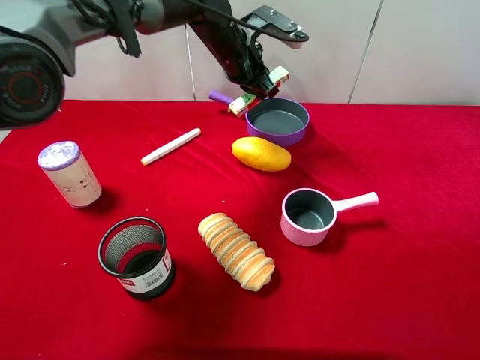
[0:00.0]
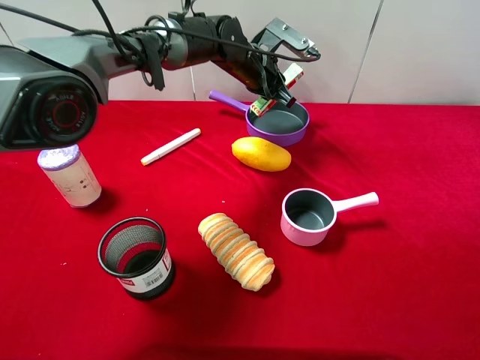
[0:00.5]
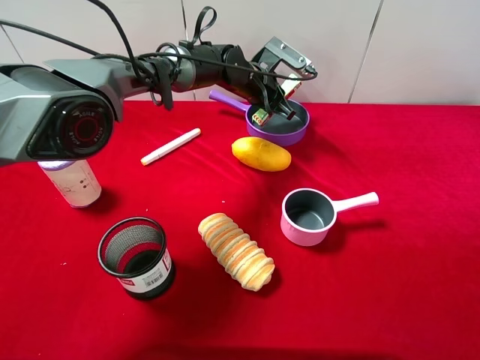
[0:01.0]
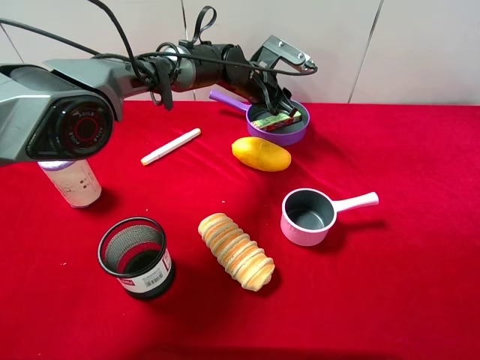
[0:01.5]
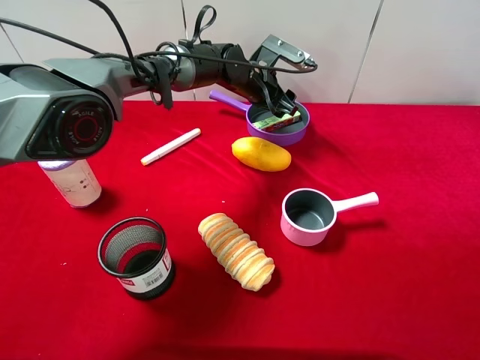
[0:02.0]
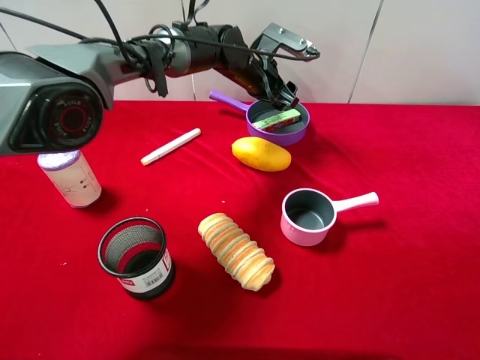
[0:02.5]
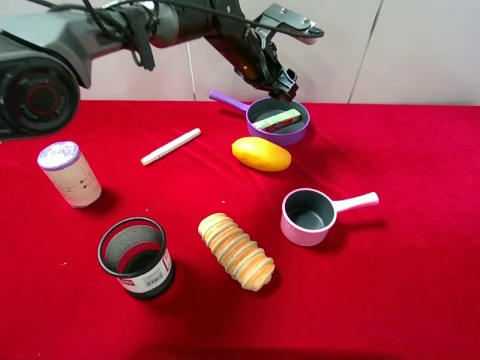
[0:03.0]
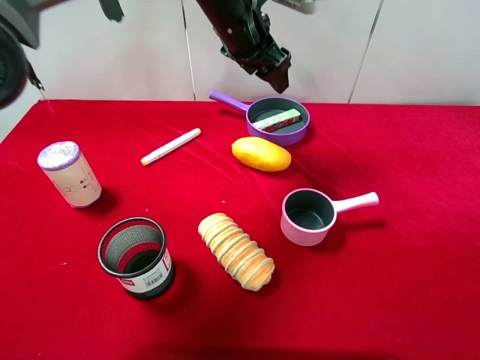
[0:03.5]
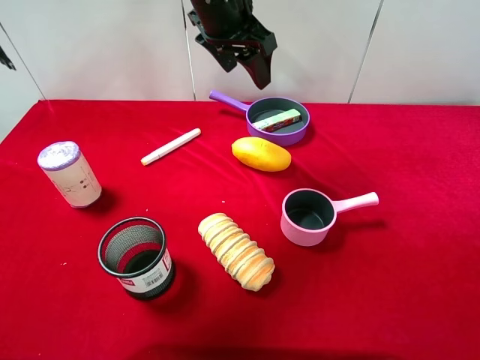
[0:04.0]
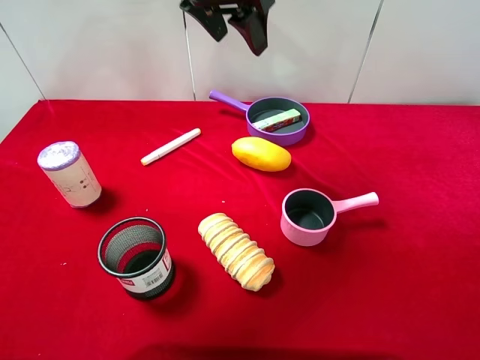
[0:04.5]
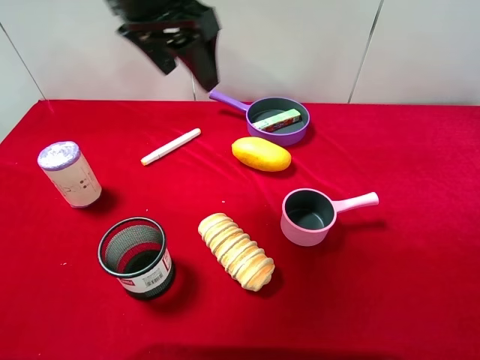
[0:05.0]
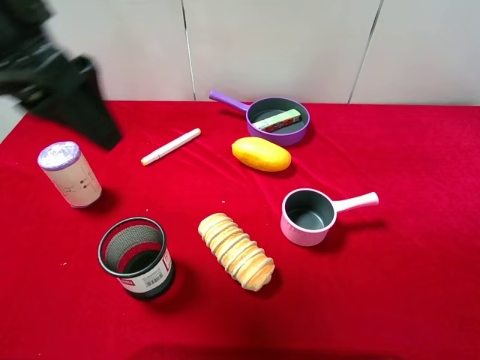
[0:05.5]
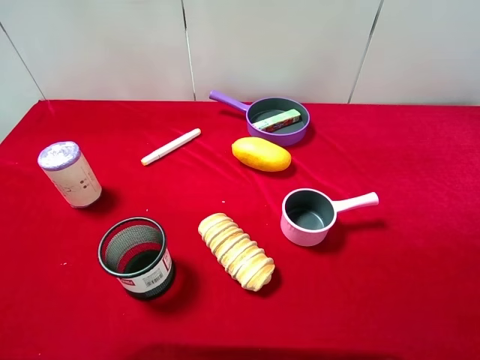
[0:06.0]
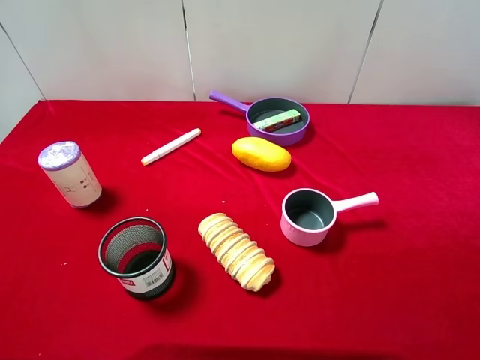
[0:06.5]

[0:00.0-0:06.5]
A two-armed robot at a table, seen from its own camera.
Task of the whole recording: pick up an item with a gripper and place it in a random container on the desktop.
0:00.0 to 0:02.0: The left gripper is displaced downward by roughly 10 cm, and opens its fingers.
0:02.0 to 0:04.5: The left gripper shifts some 20 cm upward and backward.
0:04.5 to 0:06.5: The left gripper heads backward and to the left, covering roughly 40 cm.

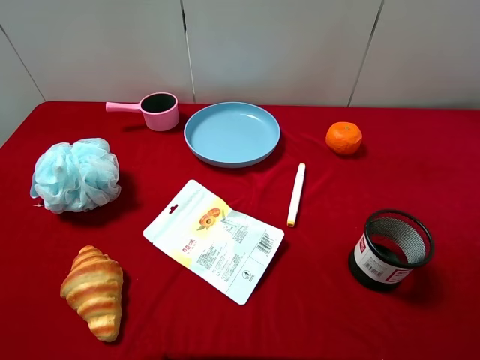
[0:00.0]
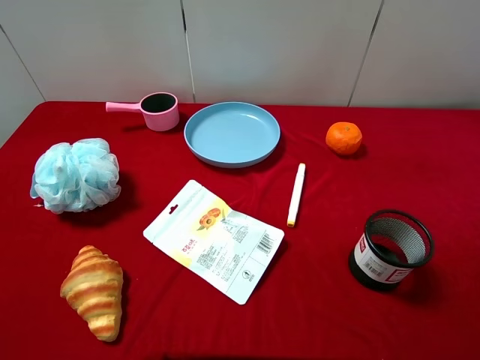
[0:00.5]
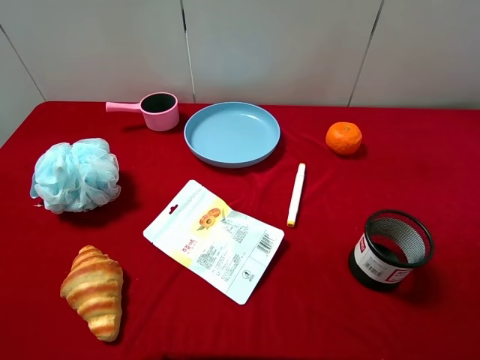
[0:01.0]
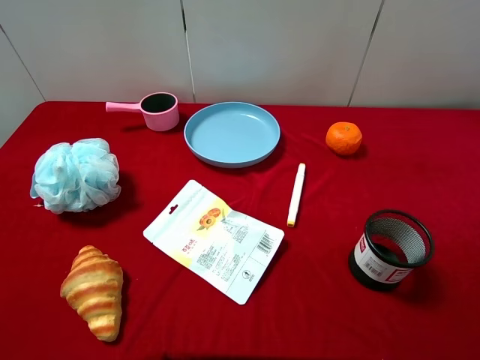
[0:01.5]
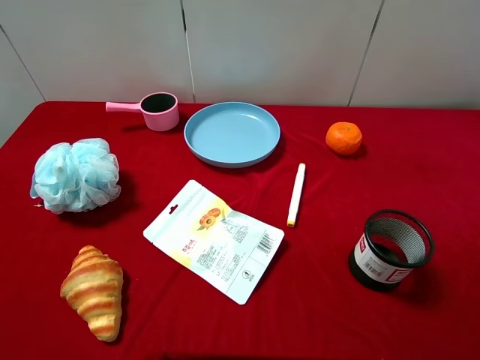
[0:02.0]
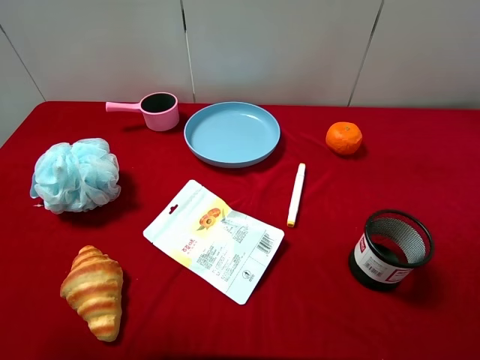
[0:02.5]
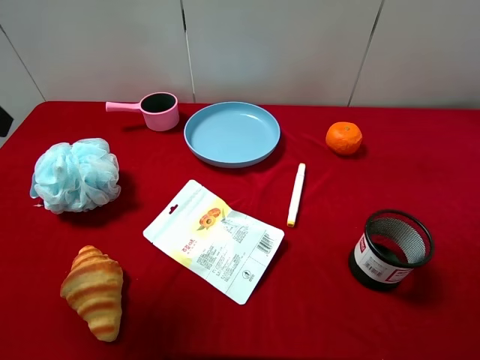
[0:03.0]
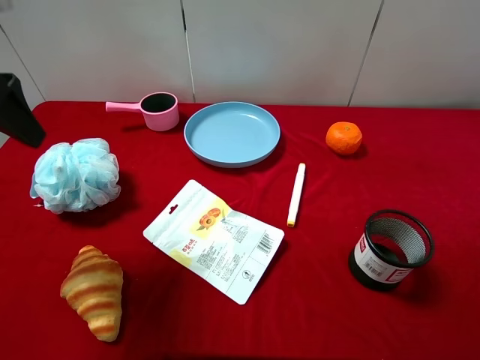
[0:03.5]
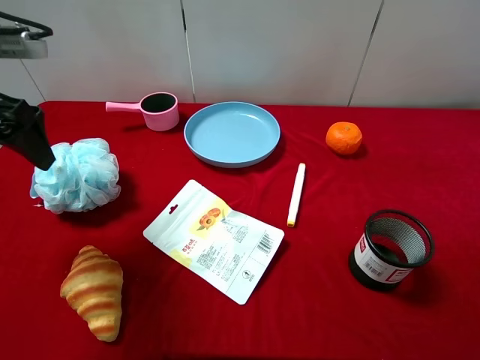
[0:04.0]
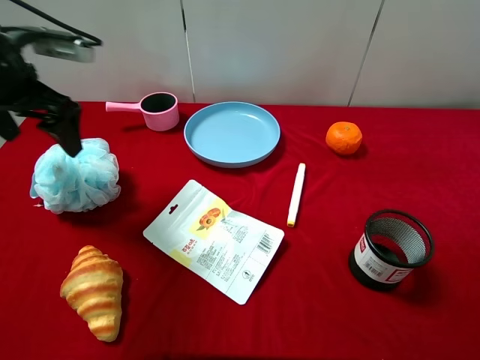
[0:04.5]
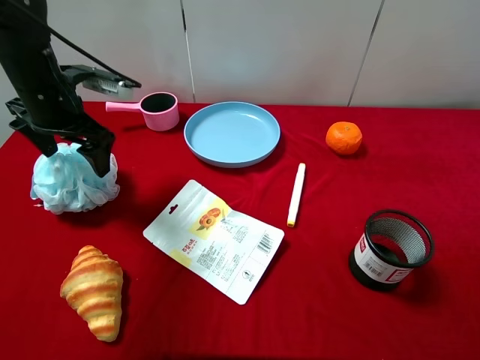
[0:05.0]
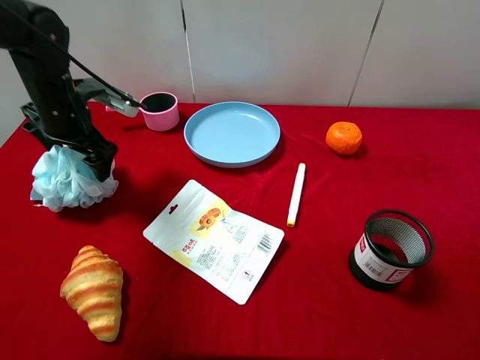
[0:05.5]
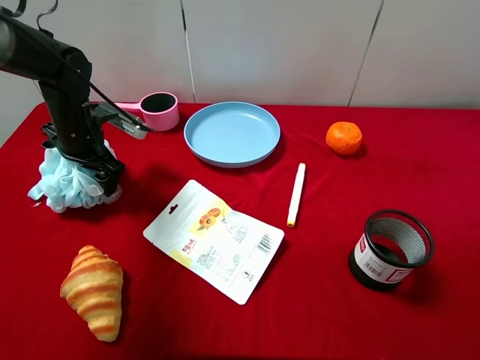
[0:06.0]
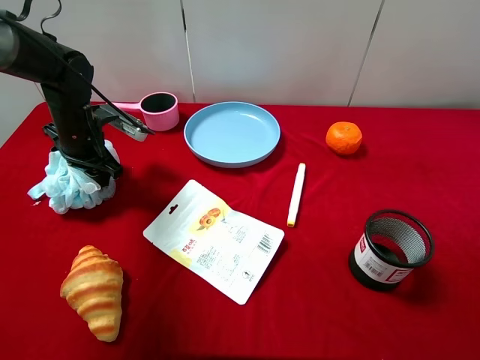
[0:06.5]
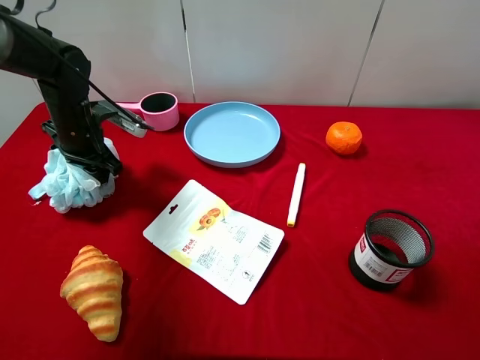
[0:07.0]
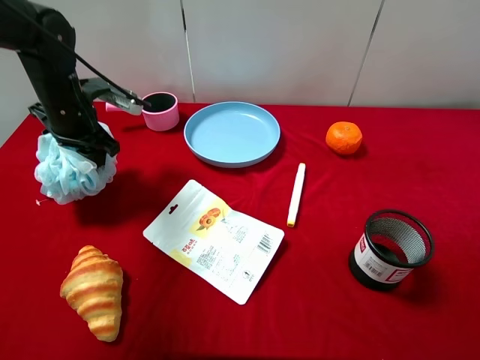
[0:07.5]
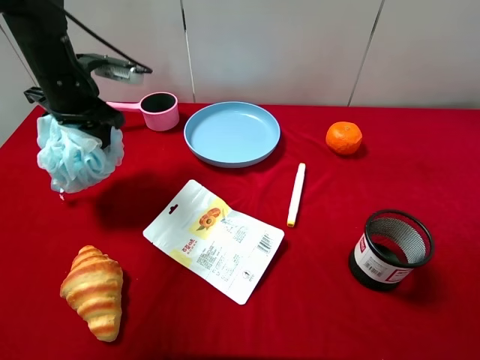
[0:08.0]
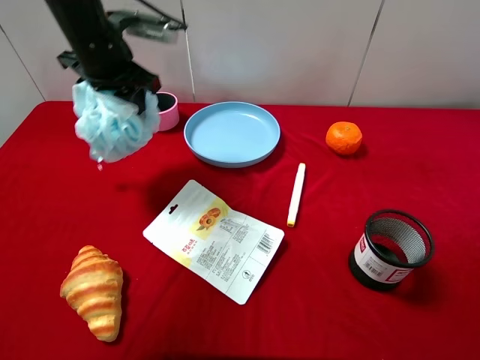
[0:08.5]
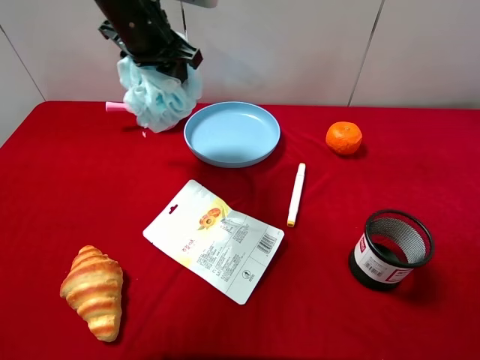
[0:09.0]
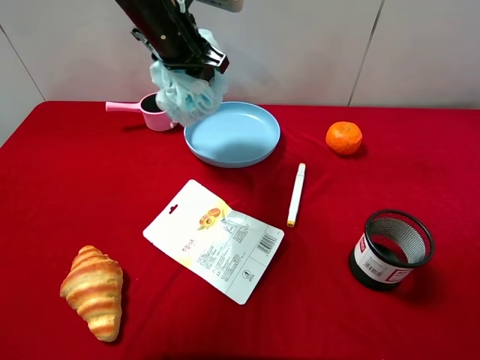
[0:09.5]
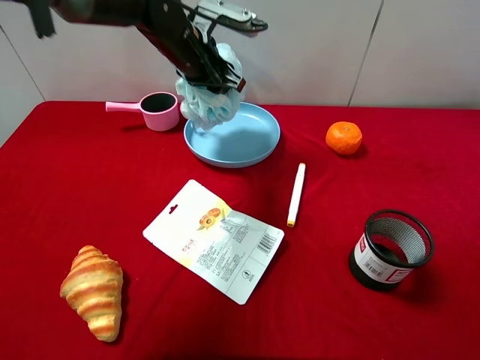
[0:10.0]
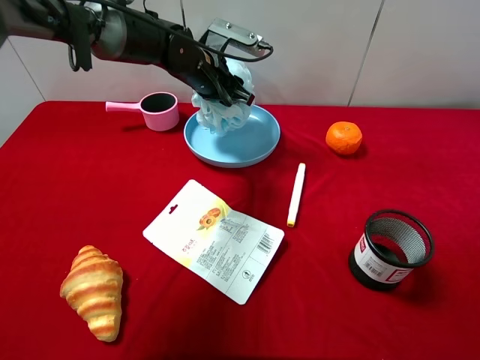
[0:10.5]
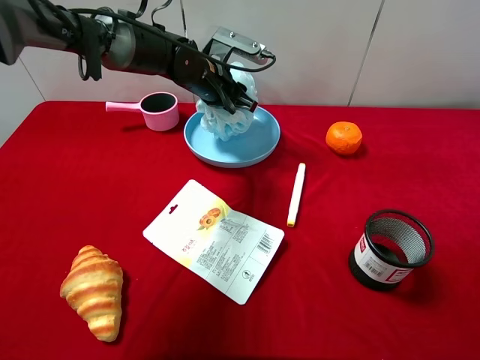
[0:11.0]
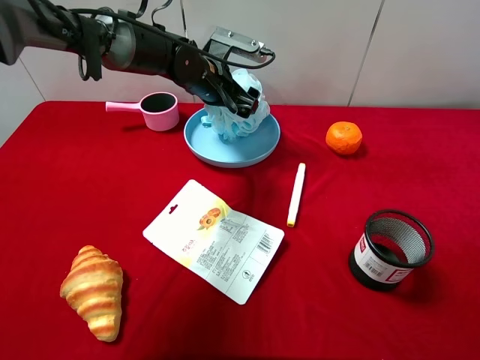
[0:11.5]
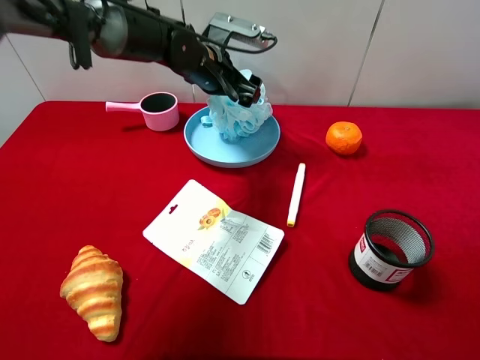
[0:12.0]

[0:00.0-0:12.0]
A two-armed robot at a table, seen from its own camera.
Task of the whole recording: pick up an item with a gripper and place it in a random container on the desktop.
0:02.0 to 0:04.0: The left gripper moves forward, some 25 cm.
0:04.0 to 0:06.0: The left gripper shifts approximately 20 cm downward and forward.
0:06.0 to 0:08.0: The left gripper shifts about 10 cm upward, and closes up.
0:08.0 to 0:10.0: The left gripper travels to the right by some 15 cm.
0:10.0 to 0:12.0: The left gripper opens its fingers.

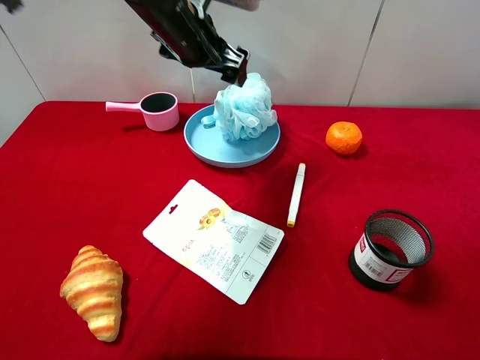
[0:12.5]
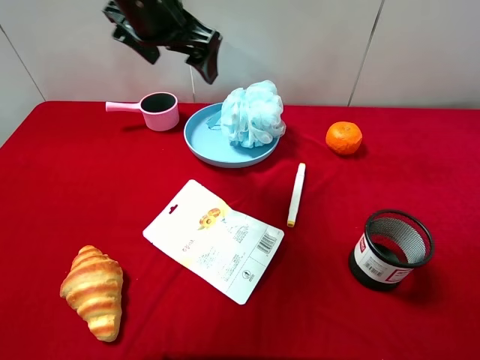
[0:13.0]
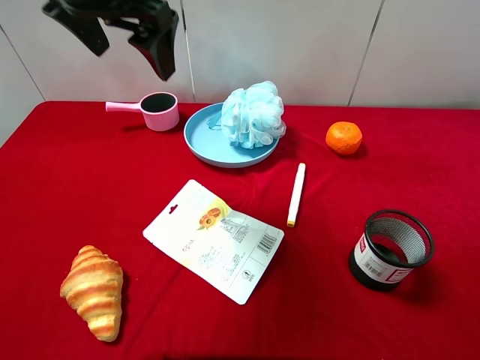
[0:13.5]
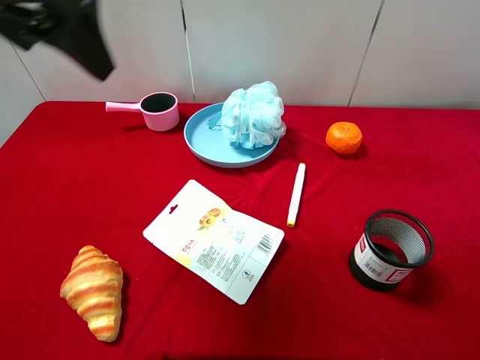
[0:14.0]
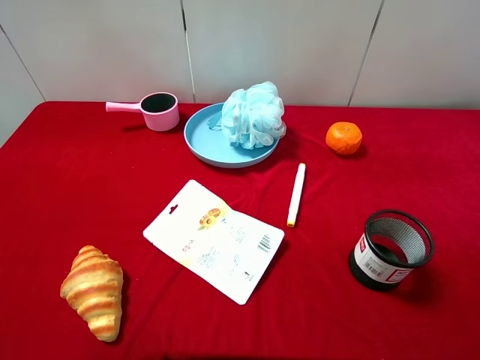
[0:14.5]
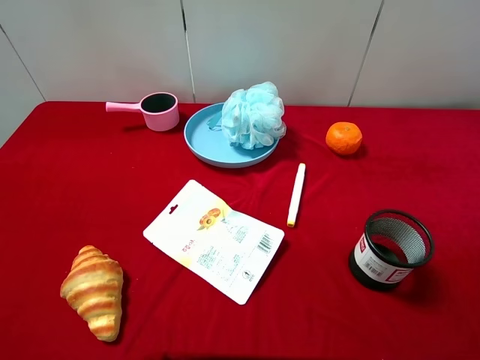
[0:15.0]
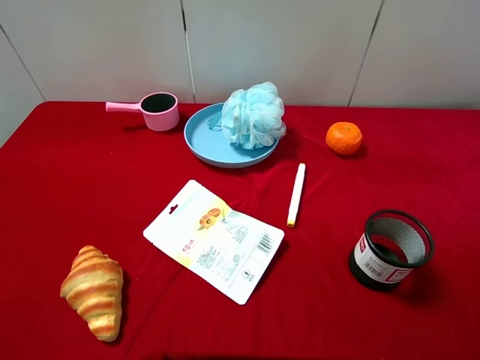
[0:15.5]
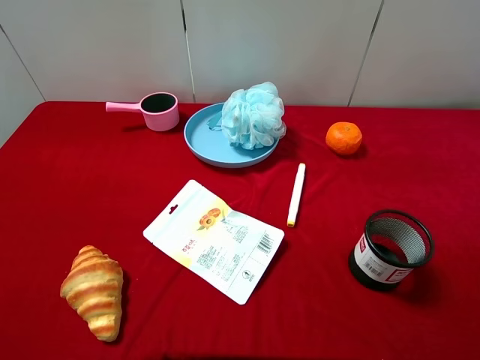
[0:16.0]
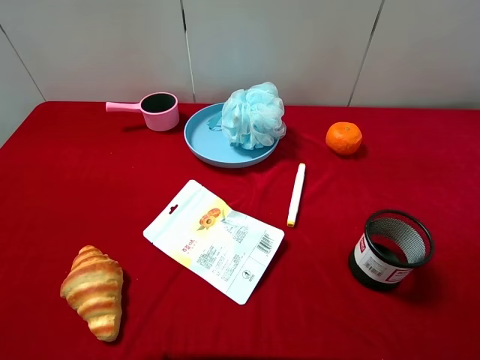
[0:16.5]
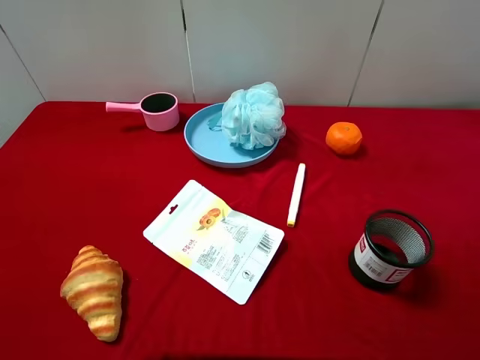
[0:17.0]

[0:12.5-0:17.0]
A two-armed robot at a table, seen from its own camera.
Task of the whole recording: pick up an item with a gripper and place it in a random container on the desktop.
0:12.5 to 0:14.5: The left gripper travels backward and to the left by some 40 cm.
0:14.5 to 0:17.0: The left gripper heads downward and backward, covering about 15 cm.
